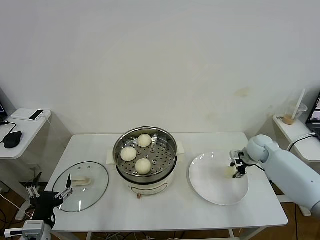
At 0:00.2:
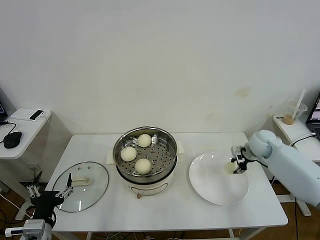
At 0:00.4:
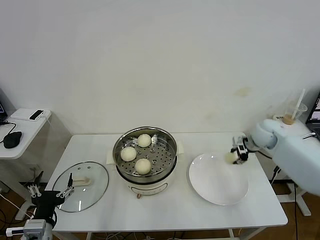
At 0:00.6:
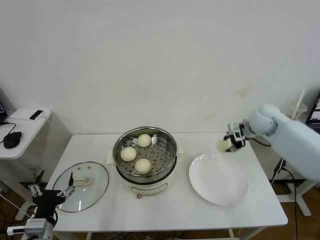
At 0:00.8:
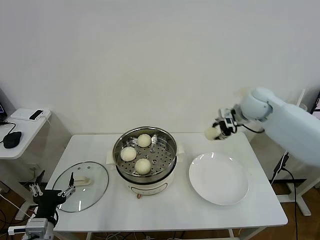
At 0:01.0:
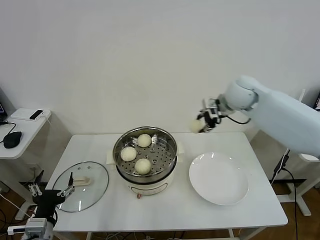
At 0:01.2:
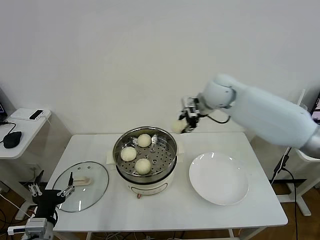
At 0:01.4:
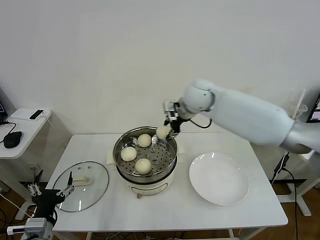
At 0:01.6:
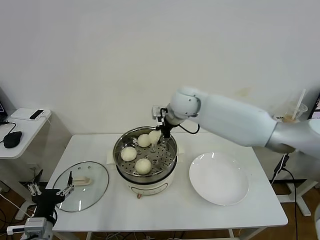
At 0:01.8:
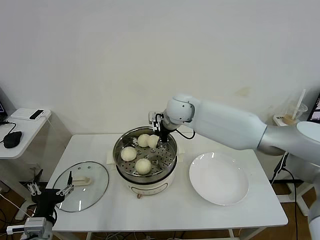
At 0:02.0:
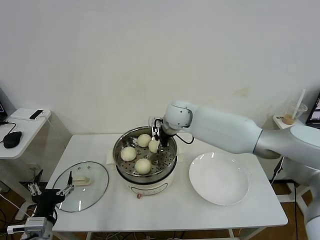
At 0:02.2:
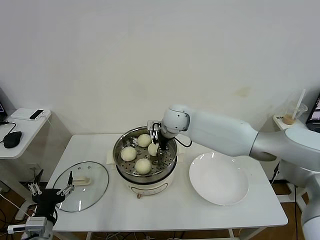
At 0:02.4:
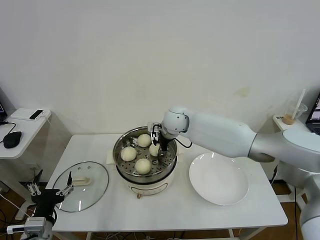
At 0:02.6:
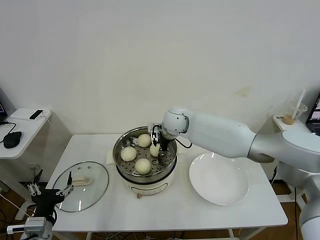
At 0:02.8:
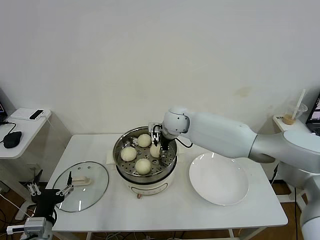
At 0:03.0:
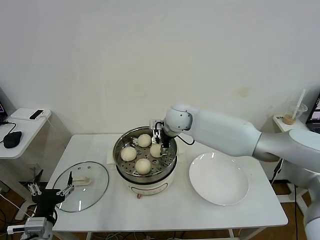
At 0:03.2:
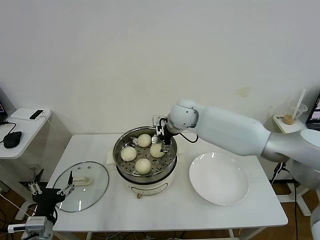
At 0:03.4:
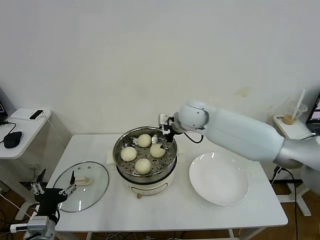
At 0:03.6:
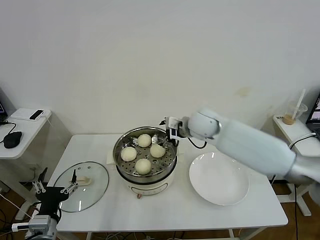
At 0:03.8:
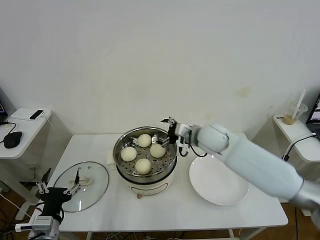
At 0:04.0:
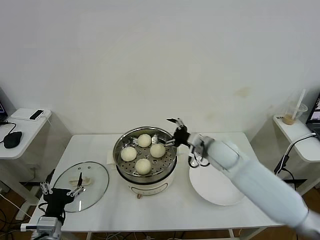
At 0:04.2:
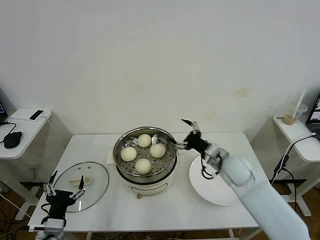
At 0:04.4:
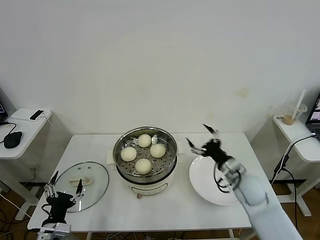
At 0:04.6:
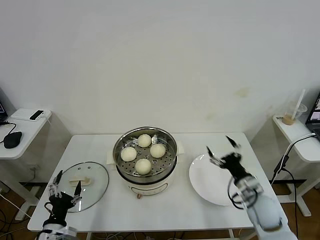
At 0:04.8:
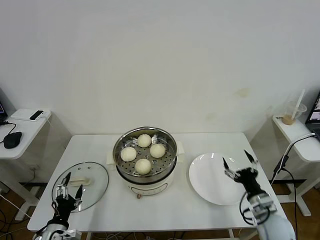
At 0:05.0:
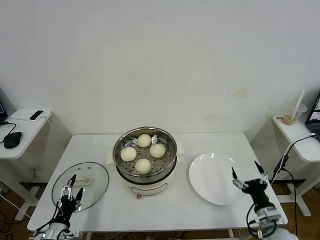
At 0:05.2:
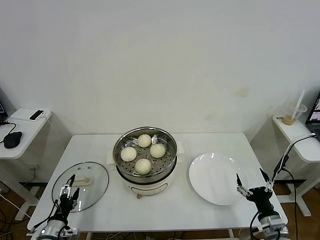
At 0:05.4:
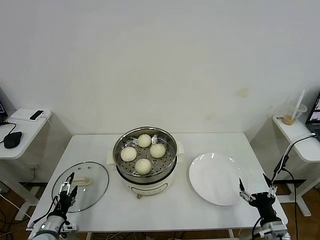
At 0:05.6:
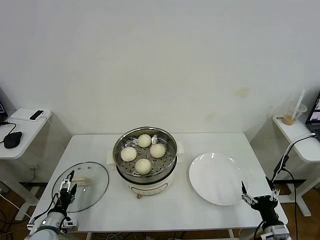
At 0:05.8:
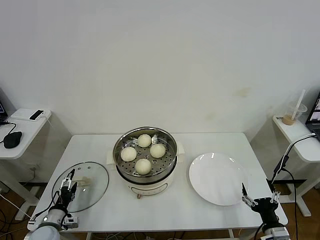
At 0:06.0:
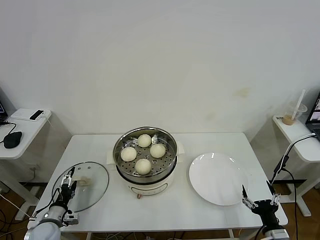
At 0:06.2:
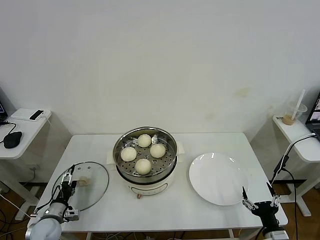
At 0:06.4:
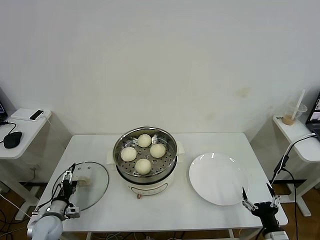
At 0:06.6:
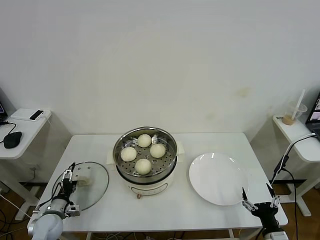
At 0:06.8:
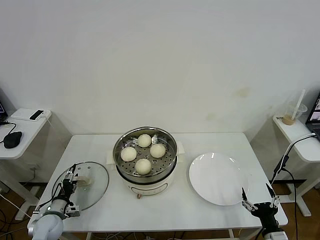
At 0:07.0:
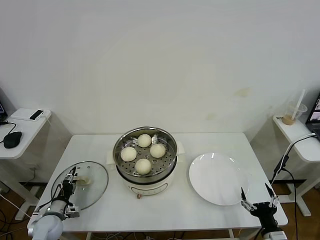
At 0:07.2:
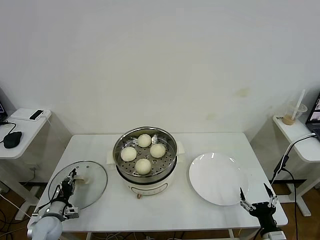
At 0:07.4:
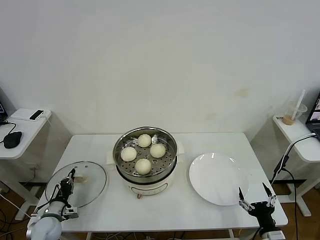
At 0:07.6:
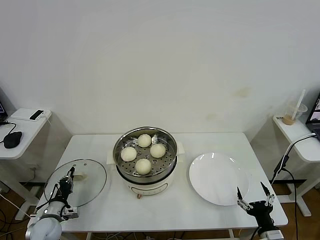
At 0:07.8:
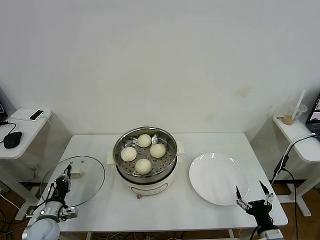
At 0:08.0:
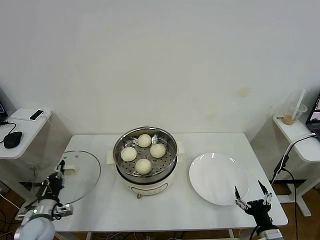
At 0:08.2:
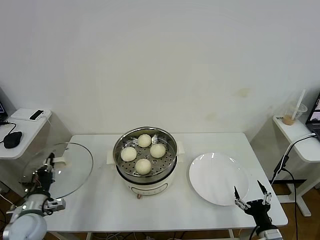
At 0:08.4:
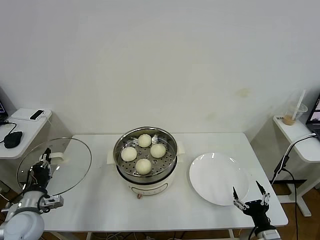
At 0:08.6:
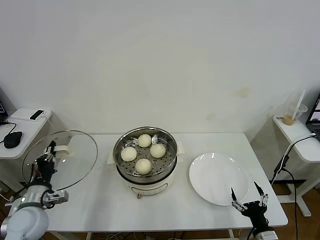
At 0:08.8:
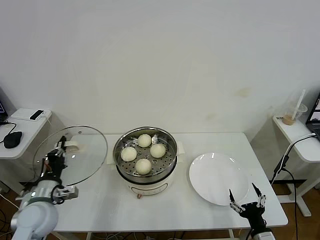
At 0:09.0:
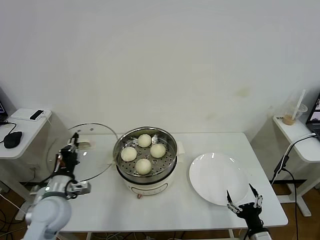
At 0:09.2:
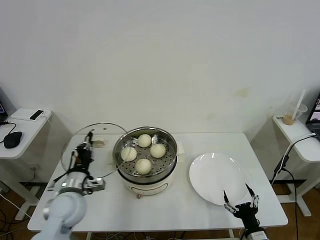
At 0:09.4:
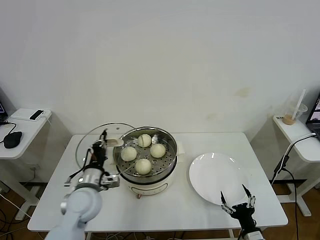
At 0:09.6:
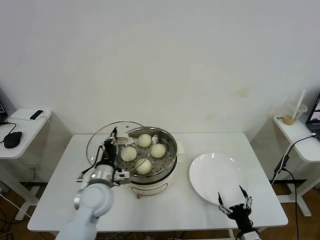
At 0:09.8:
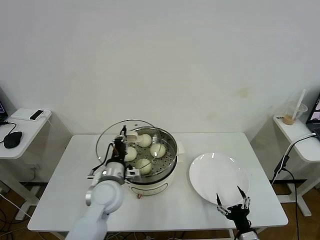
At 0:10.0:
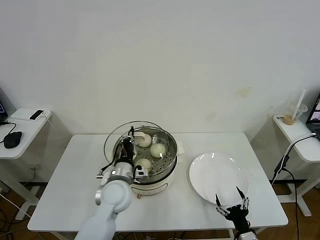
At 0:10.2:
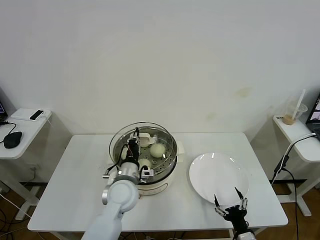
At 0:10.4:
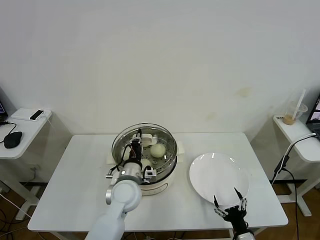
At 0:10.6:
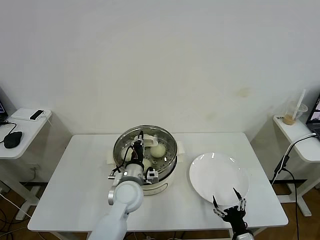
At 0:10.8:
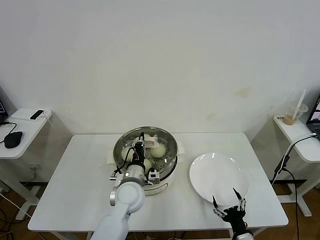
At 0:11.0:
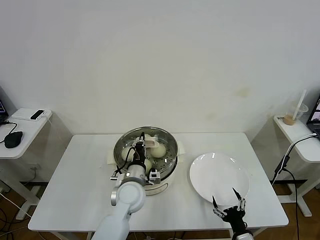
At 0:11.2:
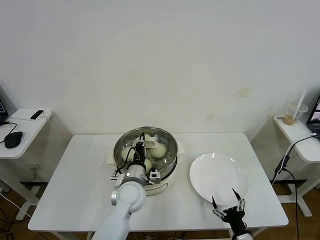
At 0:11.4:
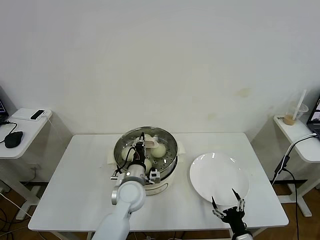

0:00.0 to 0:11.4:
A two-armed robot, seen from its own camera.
Task of the whole recording: take steamed baozi put them in steamer then cover it.
Step, 0:00.0 to 0:03.0: Place the baozi on the steamer with right gripper.
Step, 0:03.4 to 0:07.6: Grasp the pot lid with left gripper.
0:00.0 to 0:01.4: The right gripper moves to the left and upward, about 35 cm.
0:01.4 to 0:02.8: The right gripper is displaced downward and to the left by some 10 cm, and opens up.
0:02.8 to 0:04.2: The right gripper heads to the right, backward and downward, covering about 25 cm.
0:04.2 to 0:05.6: The right gripper moves backward, downward and to the right, some 30 cm. Meanwhile the left gripper heads downward, to the left and forward, covering approximately 15 cm.
0:05.6 to 0:07.2: The left gripper shifts some 5 cm forward, and closes its fingers.
0:07.2 to 0:08.6: The left gripper travels upward by some 15 cm.
0:08.6 to 0:10.0: The left gripper travels to the right by approximately 25 cm. The right gripper moves some 5 cm.
0:10.0 to 0:11.4: The left gripper changes place by approximately 5 cm.

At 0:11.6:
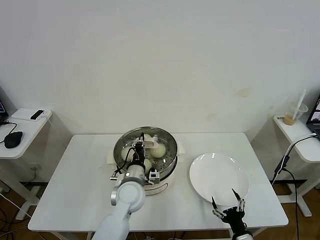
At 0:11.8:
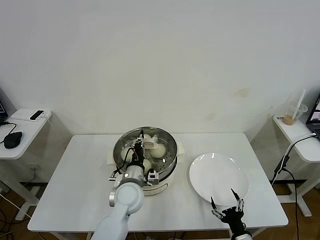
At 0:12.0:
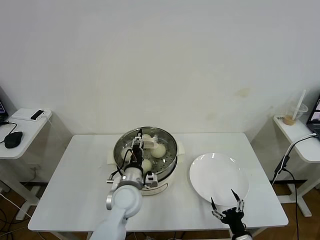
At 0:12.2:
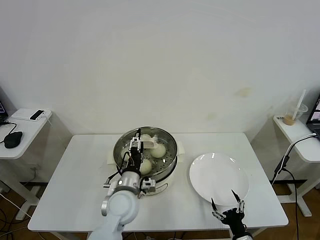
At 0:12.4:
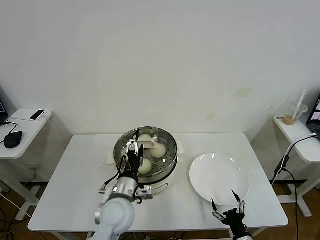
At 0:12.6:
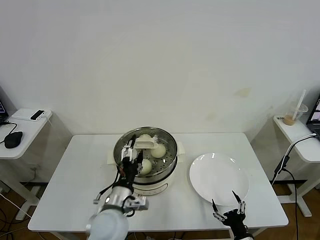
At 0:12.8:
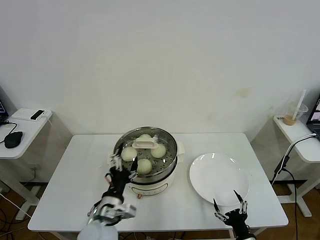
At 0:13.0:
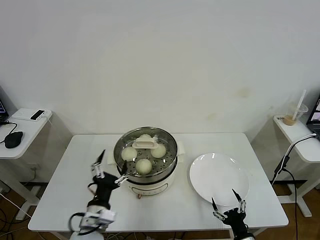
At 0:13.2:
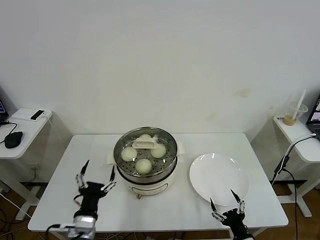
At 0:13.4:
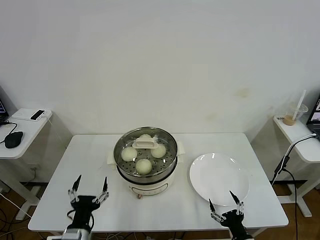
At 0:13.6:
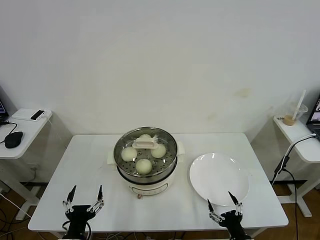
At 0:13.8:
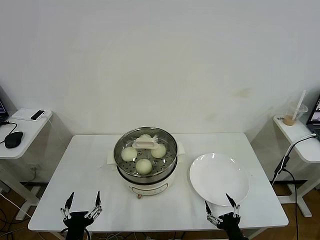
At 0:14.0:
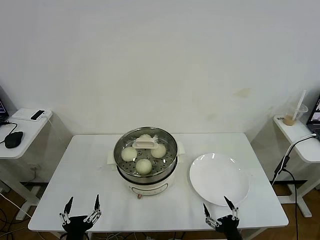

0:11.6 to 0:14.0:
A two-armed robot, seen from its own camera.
Task of the whole recording: take steamed baozi put them in steamer then cover it.
0:11.6 to 0:12.8: The left gripper moves backward and to the left, some 15 cm, and opens up.
0:12.8 to 0:14.0: The left gripper goes roughly 15 cm backward, to the left and downward.
